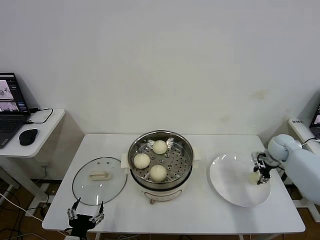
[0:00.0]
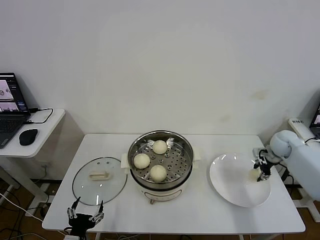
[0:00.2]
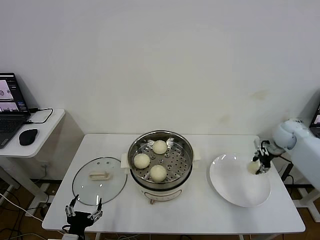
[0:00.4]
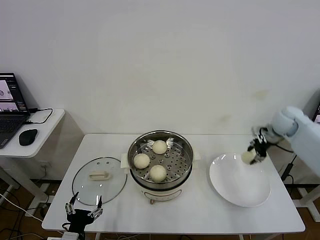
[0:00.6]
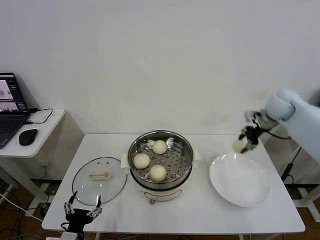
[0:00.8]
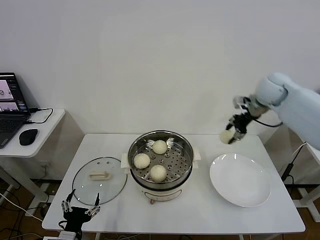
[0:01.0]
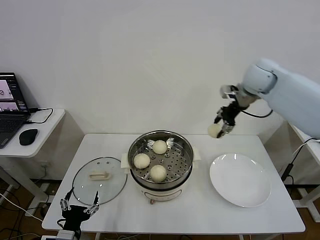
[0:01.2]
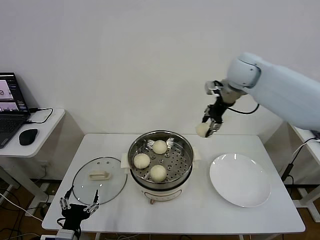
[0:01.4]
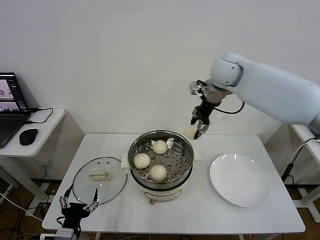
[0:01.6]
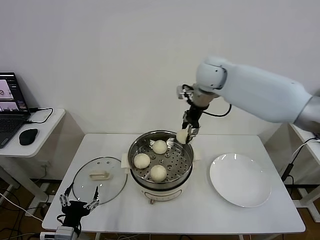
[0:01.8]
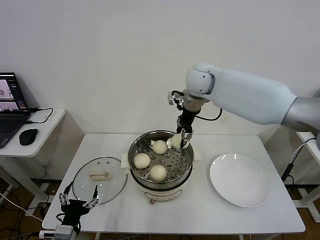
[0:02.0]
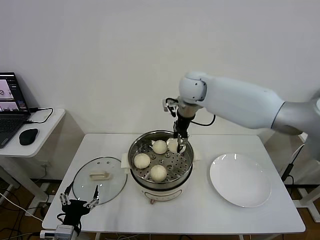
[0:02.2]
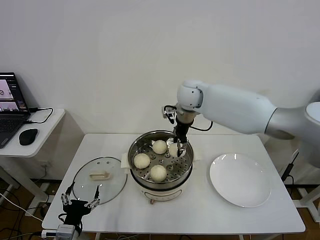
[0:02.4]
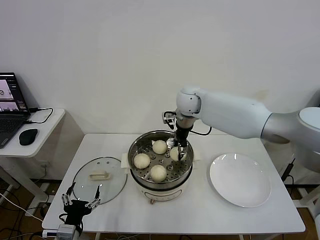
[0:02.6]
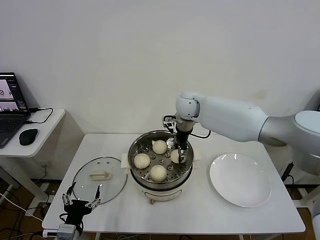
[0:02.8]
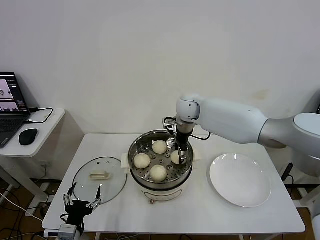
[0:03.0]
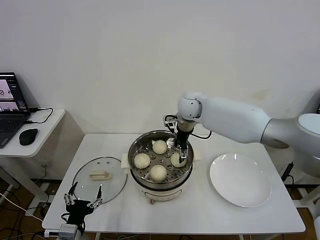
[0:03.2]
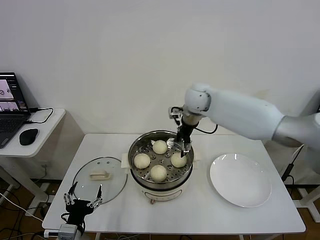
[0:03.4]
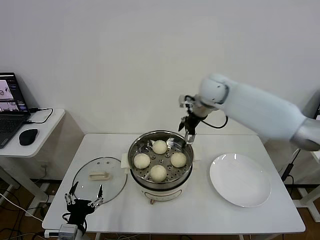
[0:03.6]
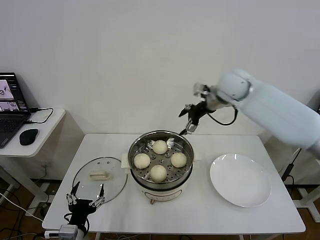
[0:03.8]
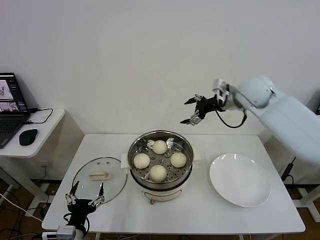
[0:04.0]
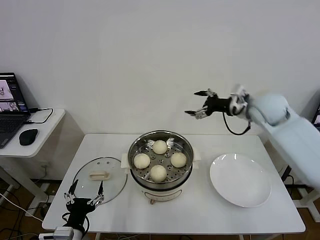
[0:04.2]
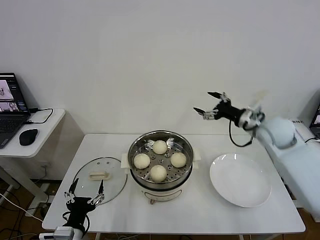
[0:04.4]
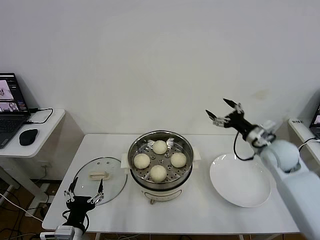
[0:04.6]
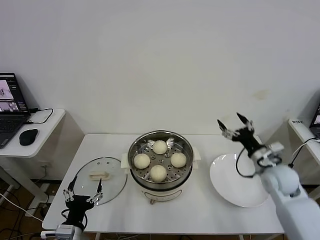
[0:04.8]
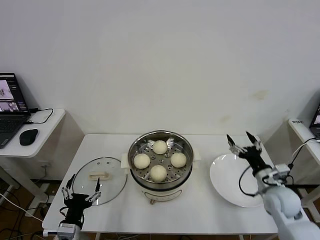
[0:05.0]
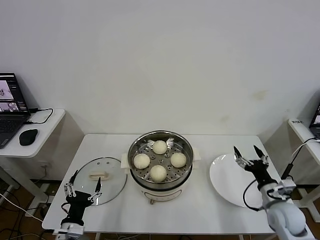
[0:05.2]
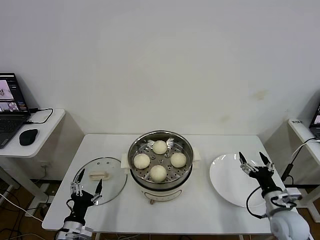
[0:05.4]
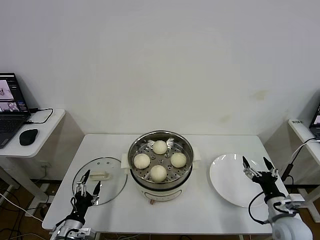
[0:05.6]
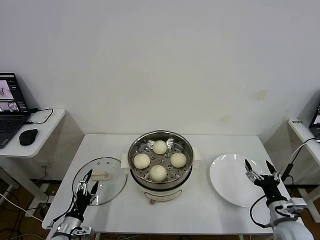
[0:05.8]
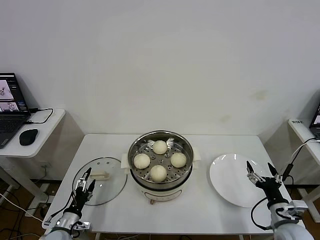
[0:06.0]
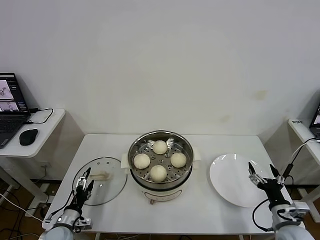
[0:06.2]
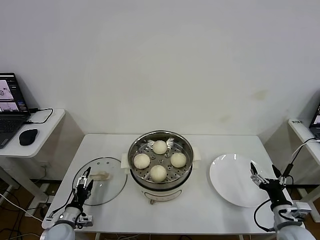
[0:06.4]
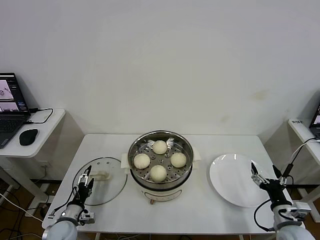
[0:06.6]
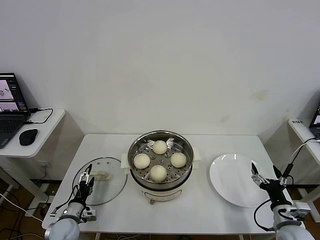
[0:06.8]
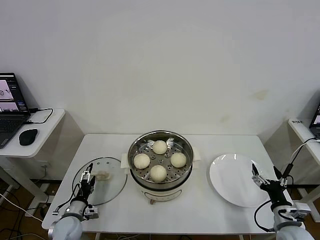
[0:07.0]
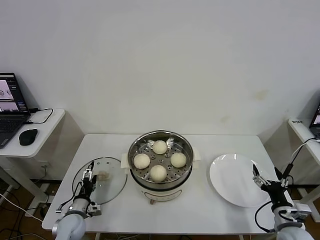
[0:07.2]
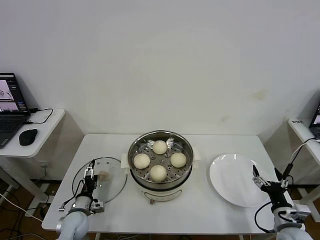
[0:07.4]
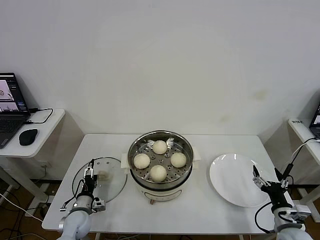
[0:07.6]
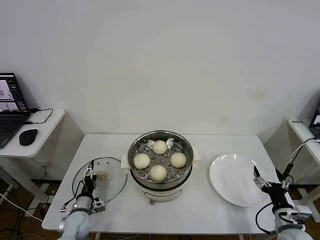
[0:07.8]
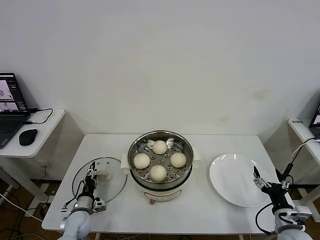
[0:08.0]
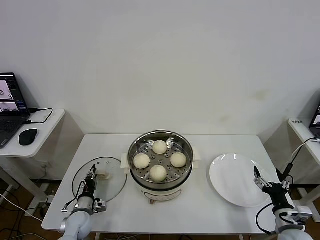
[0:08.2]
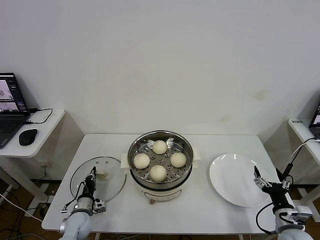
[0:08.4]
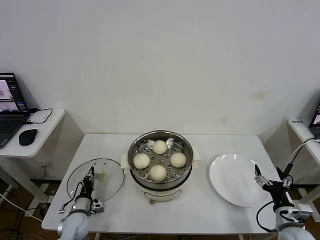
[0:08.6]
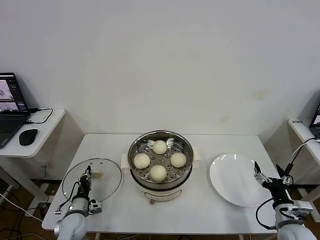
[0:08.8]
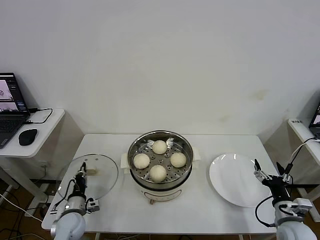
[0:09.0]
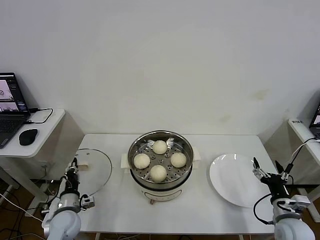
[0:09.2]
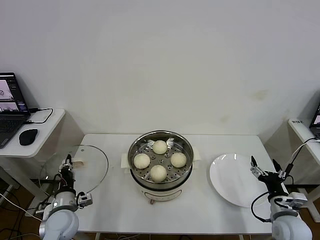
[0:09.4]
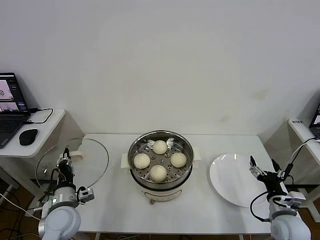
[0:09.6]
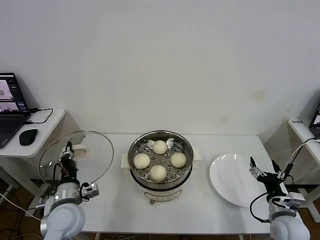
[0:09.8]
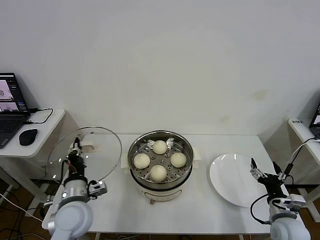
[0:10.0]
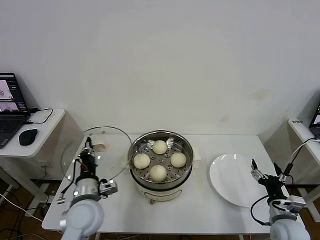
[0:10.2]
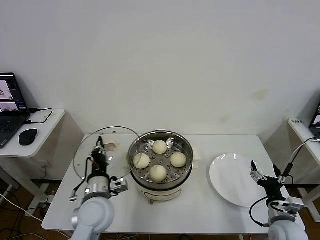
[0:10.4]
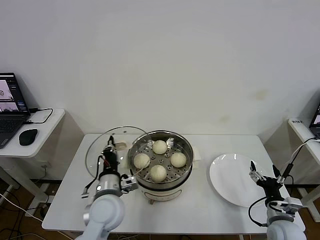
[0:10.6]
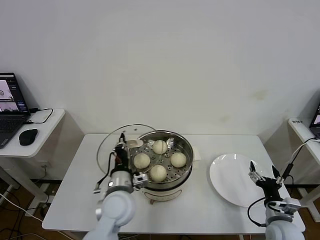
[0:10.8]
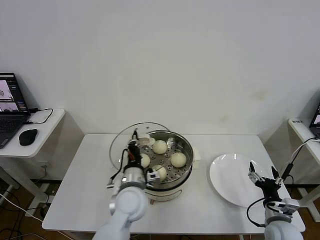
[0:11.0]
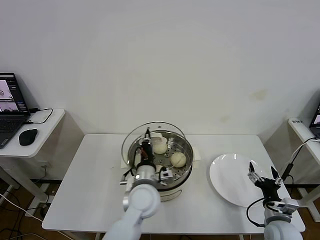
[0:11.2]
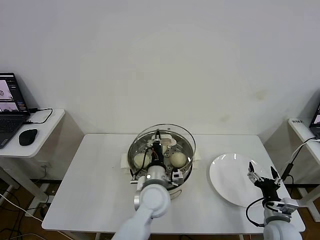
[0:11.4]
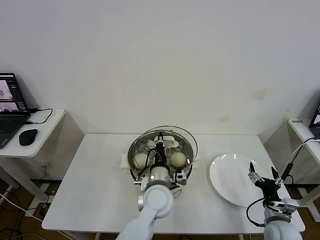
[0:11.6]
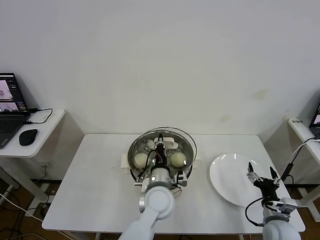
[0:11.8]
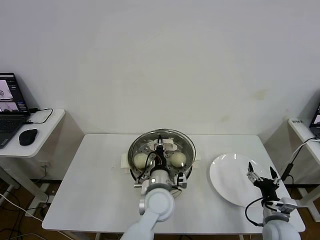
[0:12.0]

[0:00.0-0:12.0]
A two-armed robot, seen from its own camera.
Step, 0:00.0 to 0:03.0: Place the baozi on the steamer with right gripper.
Step, 0:03.4 to 0:08.6: Grasp the pot lid with left gripper.
0:00.0 to 0:01.6: The right gripper shifts about 40 cm to the left and upward.
0:01.6 to 0:03.0: The right gripper travels downward and to the left by approximately 15 cm, and opens its fingers.
0:03.0 to 0:04.4: The right gripper heads to the right and backward, covering roughly 25 cm, and opens.
0:04.4 to 0:06.0: The right gripper is displaced backward and downward by roughly 30 cm, while the left gripper goes approximately 15 cm downward, to the left and forward.
0:06.0 to 0:07.6: The left gripper moves forward, about 10 cm.
0:07.6 to 0:09.0: The left gripper closes.
0:09.0 to 0:10.4: The left gripper travels upward and to the right by some 20 cm.
0:10.4 to 0:12.0: The left gripper is displaced to the right by approximately 20 cm.

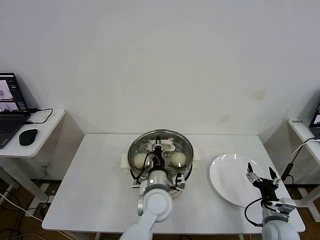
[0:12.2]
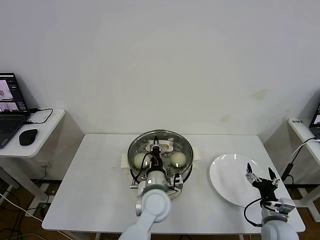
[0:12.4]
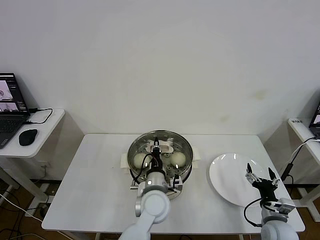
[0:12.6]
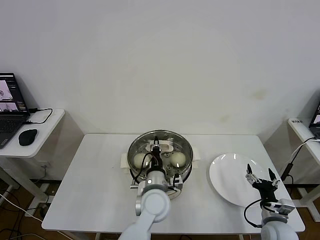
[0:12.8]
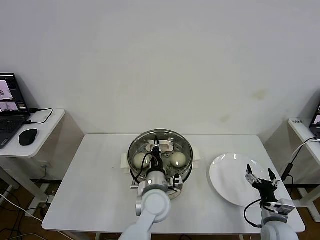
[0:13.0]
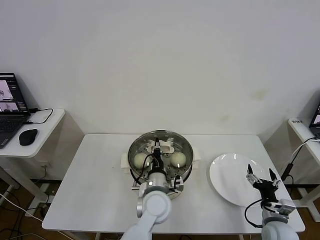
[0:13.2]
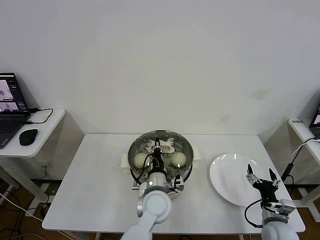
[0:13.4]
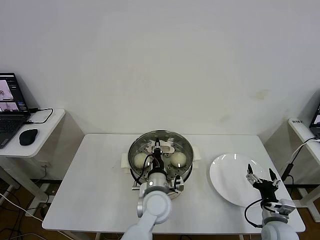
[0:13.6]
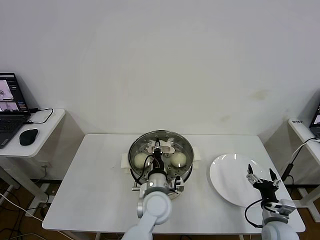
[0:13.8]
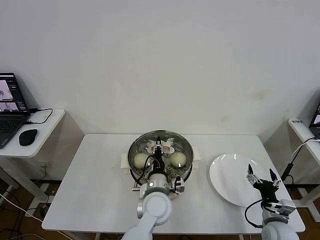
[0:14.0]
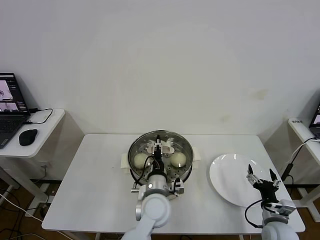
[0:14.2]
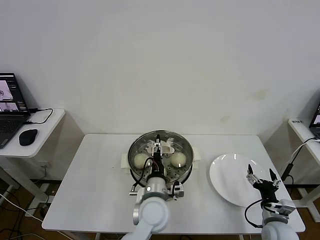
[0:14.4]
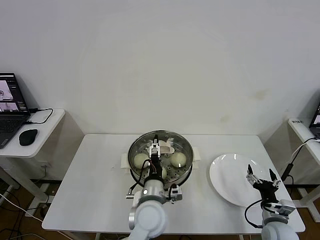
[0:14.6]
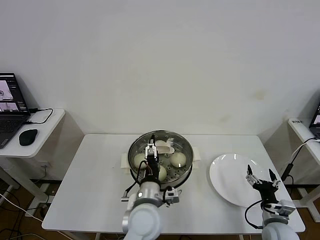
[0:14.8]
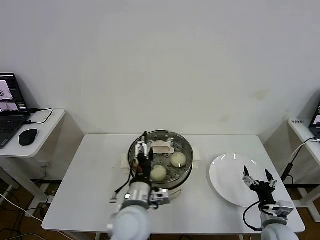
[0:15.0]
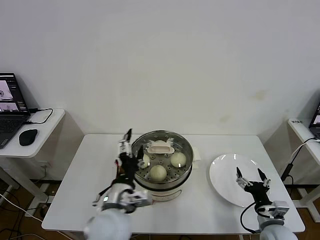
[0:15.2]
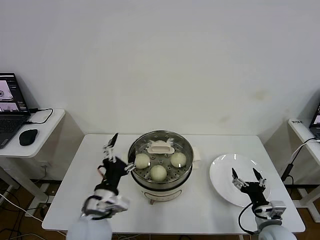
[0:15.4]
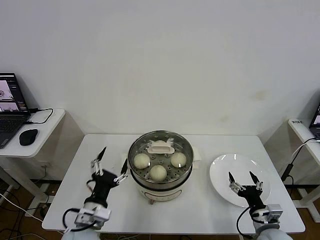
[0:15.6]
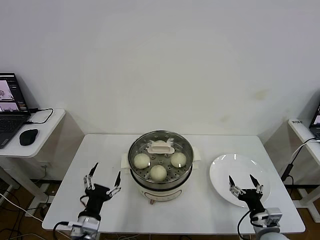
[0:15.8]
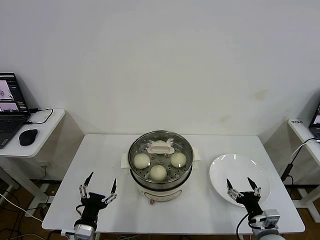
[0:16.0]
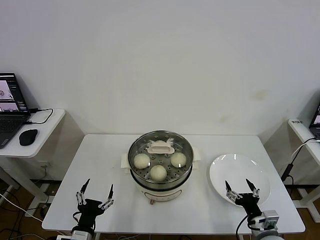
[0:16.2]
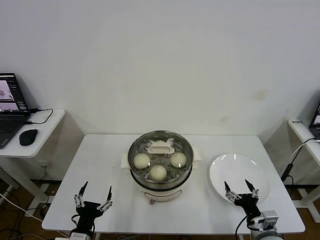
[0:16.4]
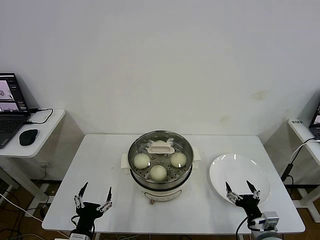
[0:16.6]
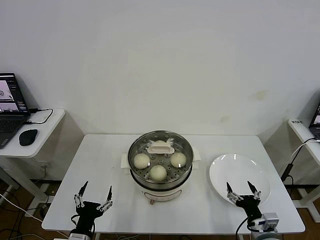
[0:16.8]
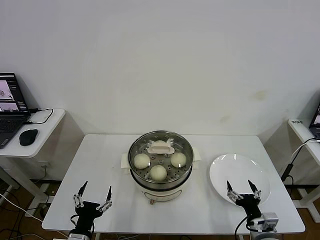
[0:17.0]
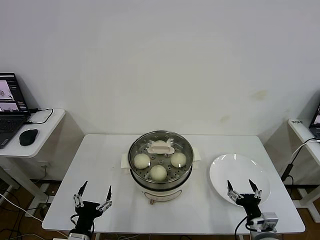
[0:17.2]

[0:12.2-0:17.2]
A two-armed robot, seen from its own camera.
Step, 0:12.2 to 0:15.0: Place the pot lid on the steamer with left gripper.
0:12.2 to 0:13.8: The grippers move only a little.
0:13.8 to 0:15.6: The left gripper goes roughly 20 cm to the left and backward, and opens its fingers.
0:15.6 to 0:17.2: The left gripper moves downward, backward and to the left, approximately 10 cm.
